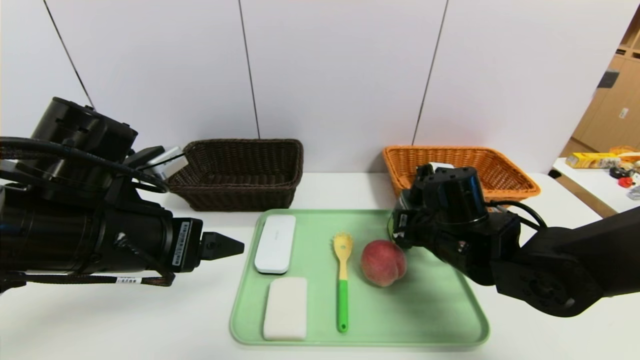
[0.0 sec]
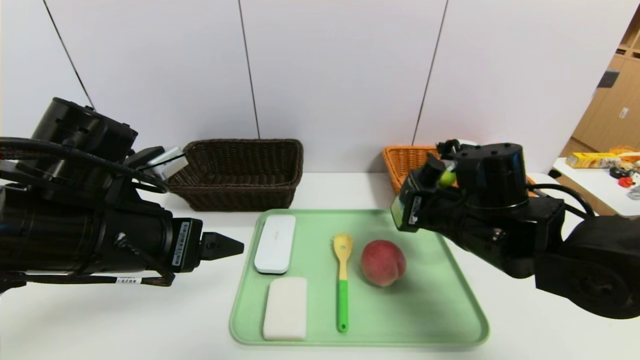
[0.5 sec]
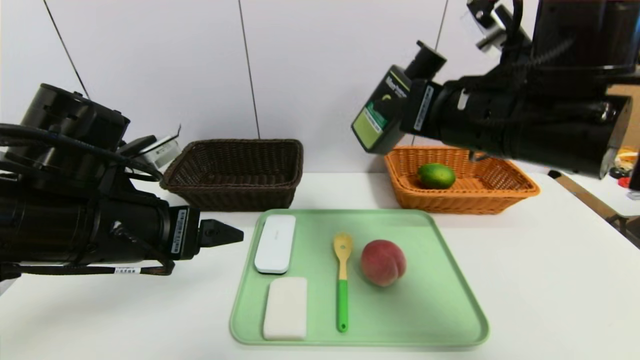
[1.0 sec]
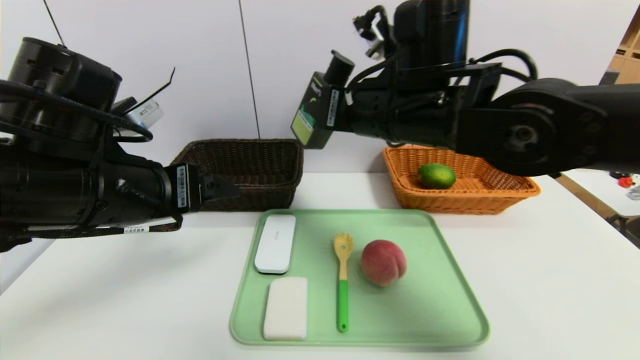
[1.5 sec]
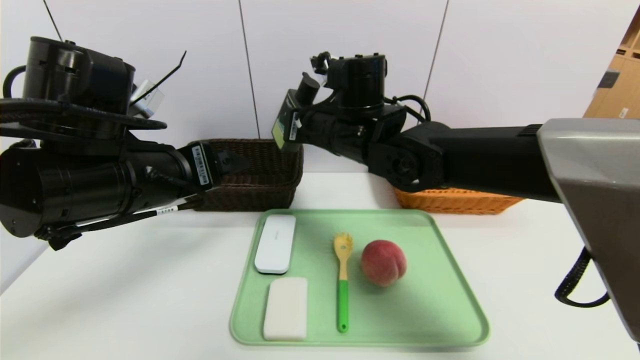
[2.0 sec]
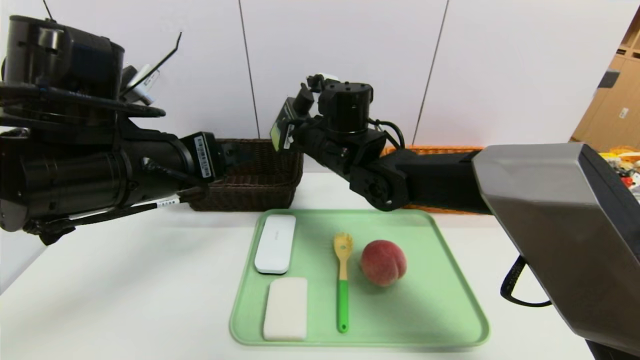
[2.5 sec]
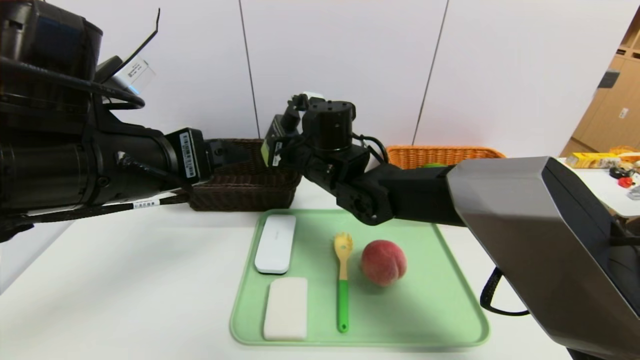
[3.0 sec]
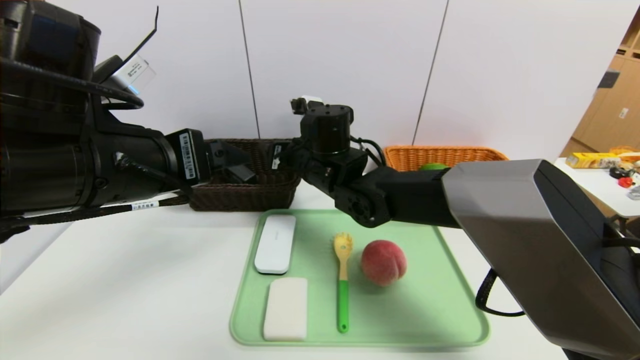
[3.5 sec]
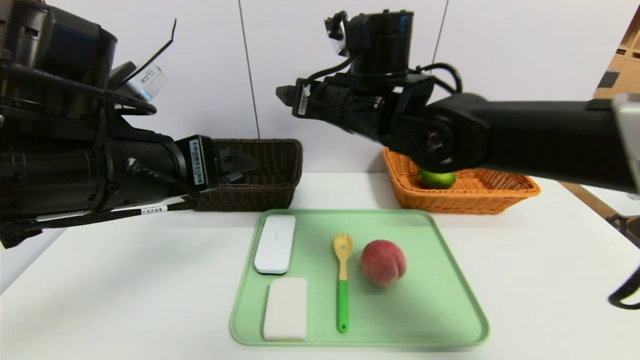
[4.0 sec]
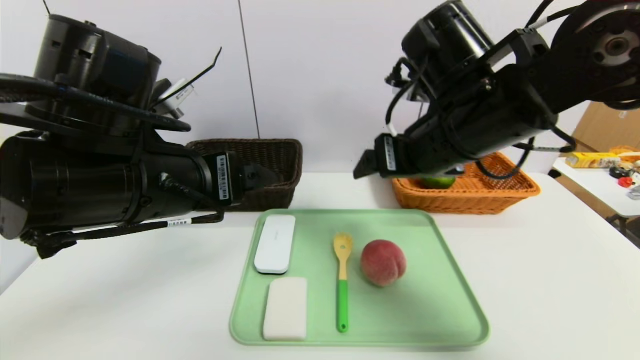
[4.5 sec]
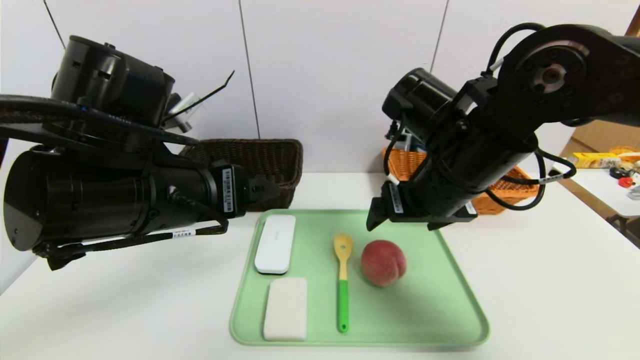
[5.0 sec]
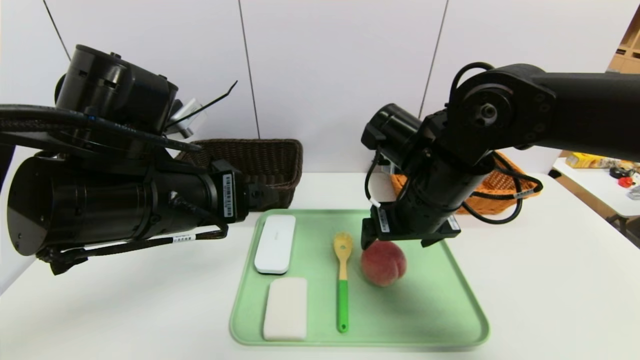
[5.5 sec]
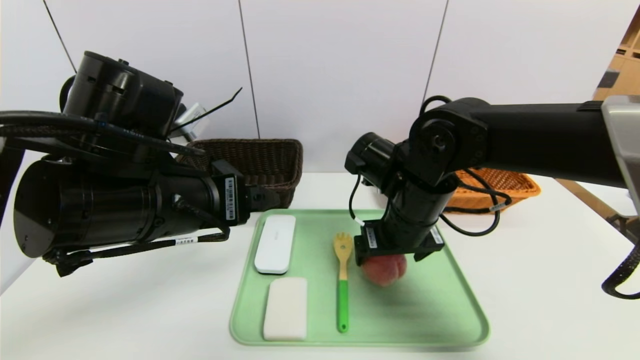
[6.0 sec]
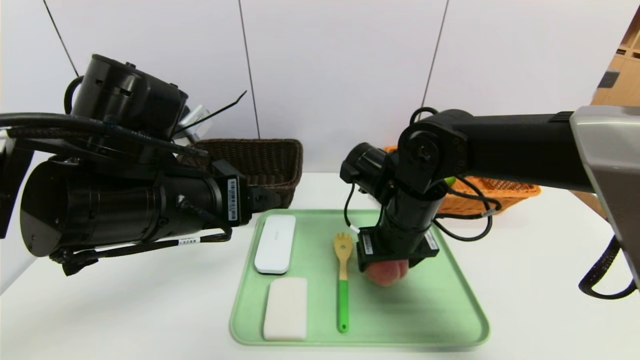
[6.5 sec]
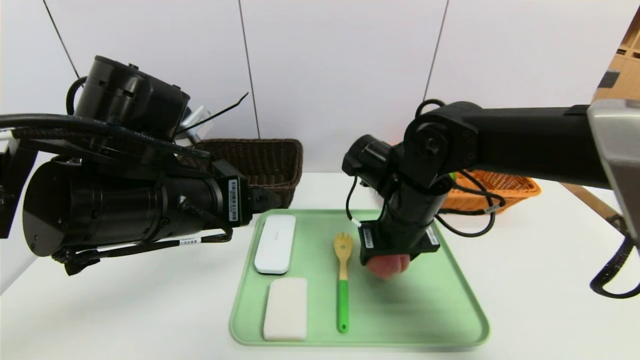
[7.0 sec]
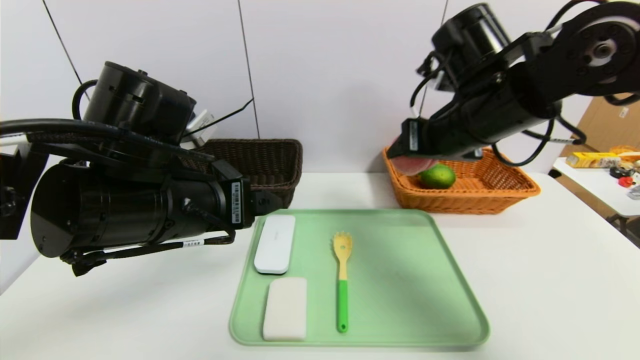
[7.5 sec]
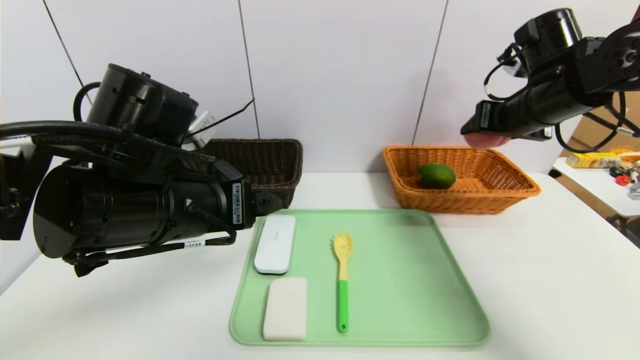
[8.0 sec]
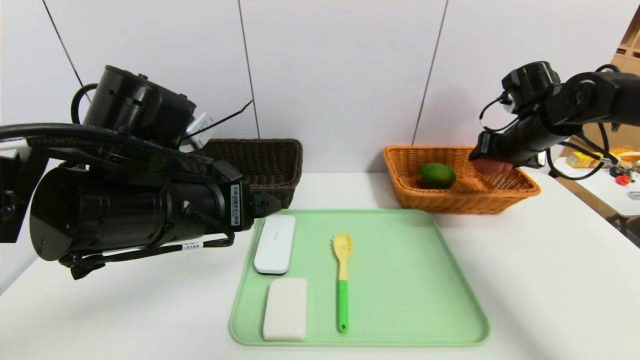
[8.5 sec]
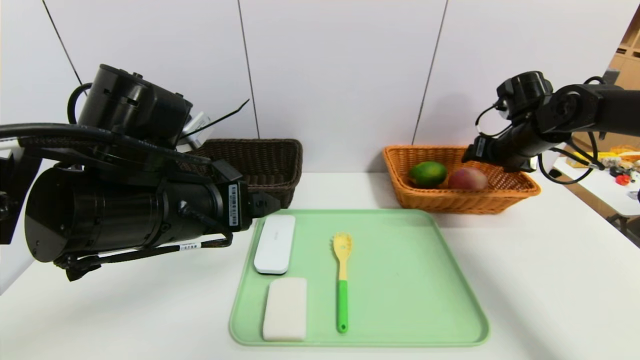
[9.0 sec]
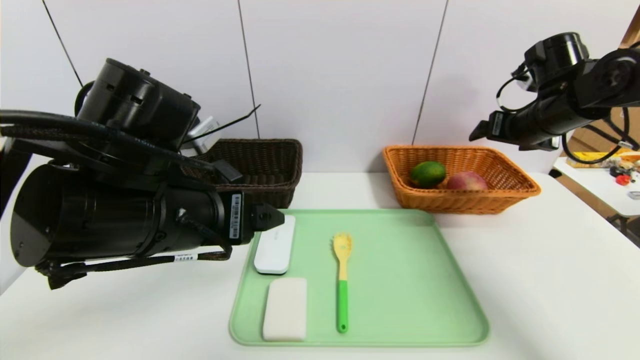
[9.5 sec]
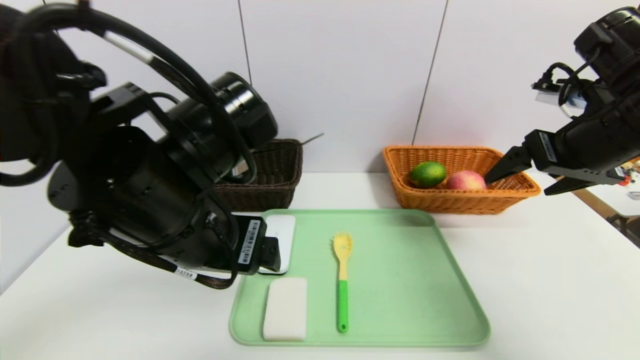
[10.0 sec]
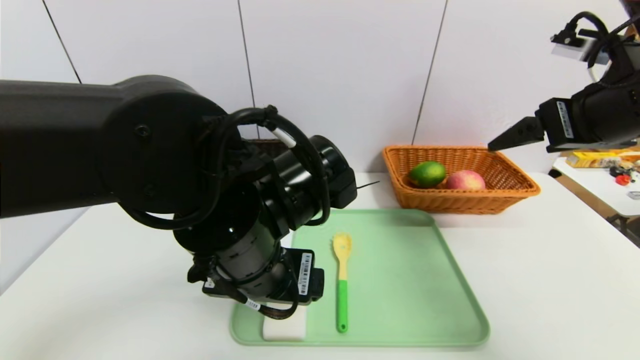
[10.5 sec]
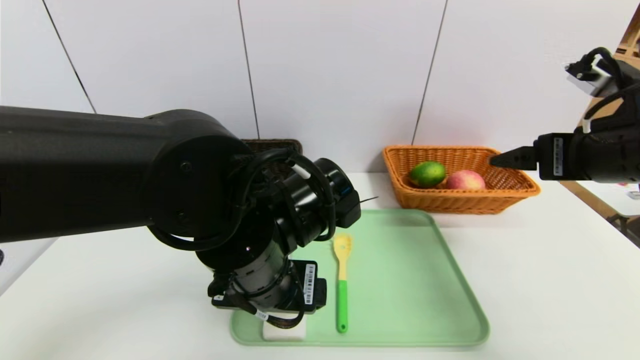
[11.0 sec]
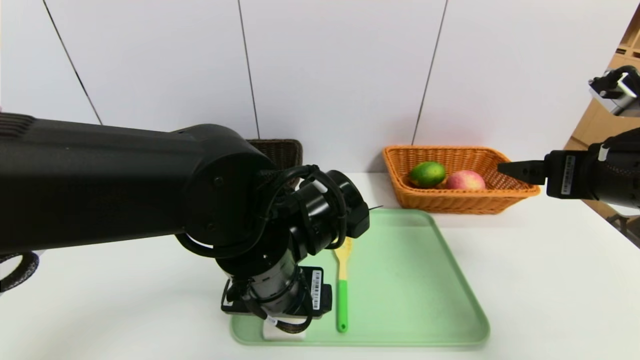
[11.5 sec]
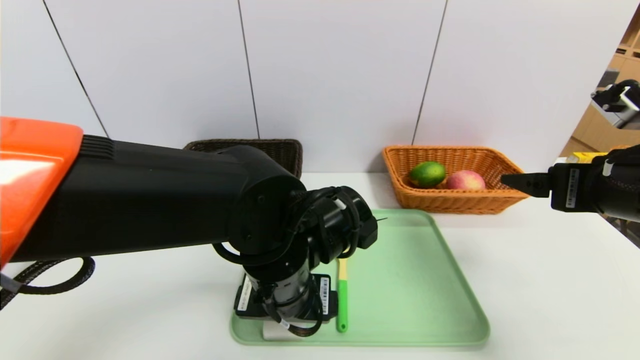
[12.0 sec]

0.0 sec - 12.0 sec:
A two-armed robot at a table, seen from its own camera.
Task of the whole recording: place the food in the right basket with the right gripper, and place the non food items in the left basket with the left gripper.
Step, 0.0 sec - 4.5 sec: Grasp the hard cleanser and put it in the left basket.
Step, 5.0 sec - 9.5 sec: Grasp the peach and put it in the right basket.
0.0 sec - 2.0 sec: The right gripper is displaced to the left, upward and forward by about 20 cm.
2.0 sec - 4.0 sec: The right gripper changes place by about 5 cm, and opens its fingers.
4.0 sec - 6.0 sec: The right gripper shifts approximately 10 cm downward and to the right.
6.0 sec - 8.0 sec: The right gripper moves to the right, upward and forward, roughly 25 cm, and closes up.
8.0 sec - 10.0 sec: The right gripper heads backward, covering about 10 cm, and opens up.
10.0 sec - 12.0 sec: The right gripper goes about 5 cm backward, while the left gripper heads downward and to the right, covering about 10 cm.

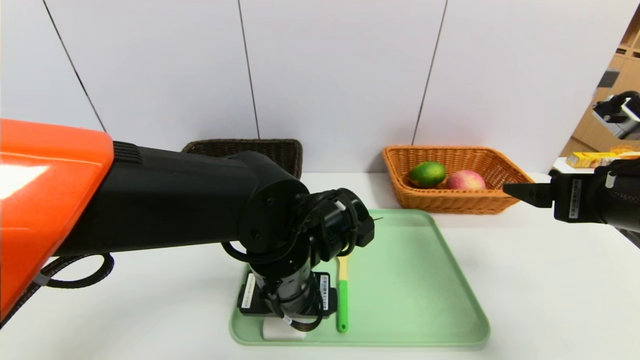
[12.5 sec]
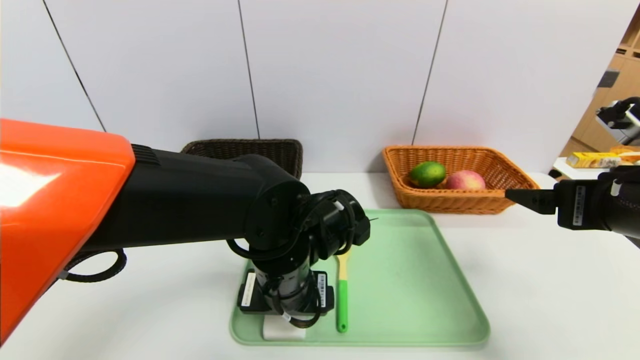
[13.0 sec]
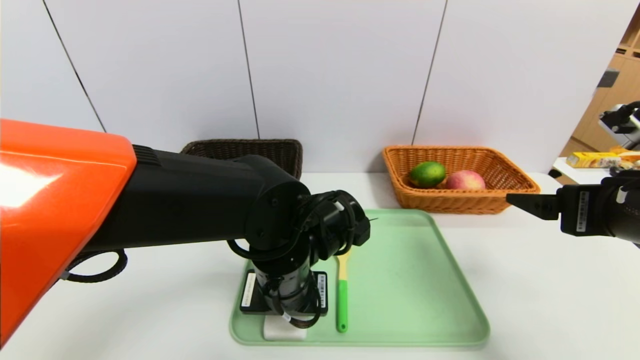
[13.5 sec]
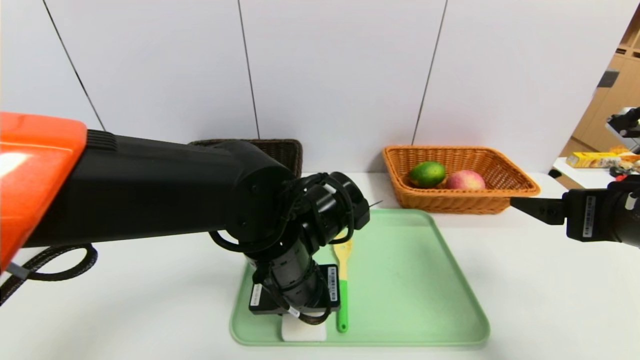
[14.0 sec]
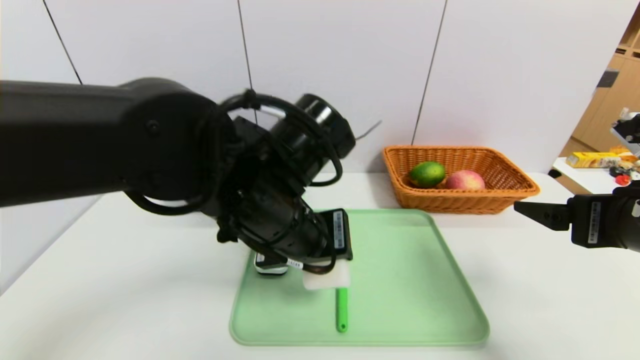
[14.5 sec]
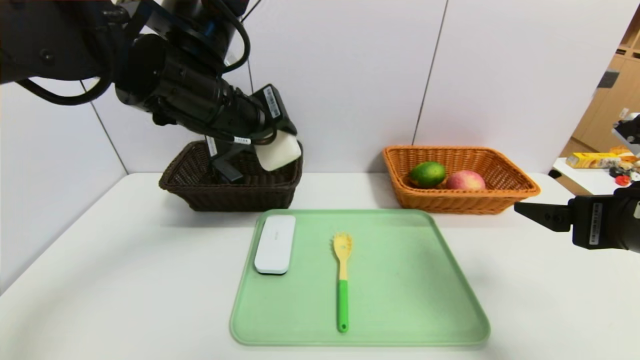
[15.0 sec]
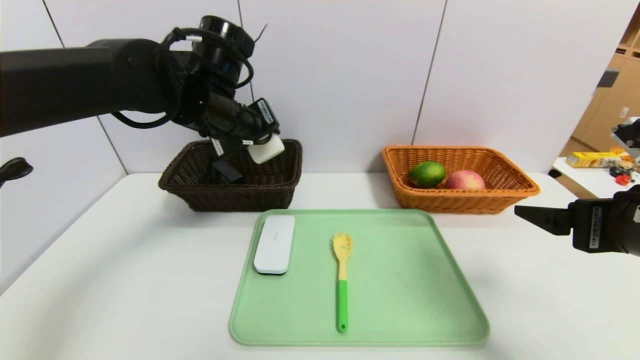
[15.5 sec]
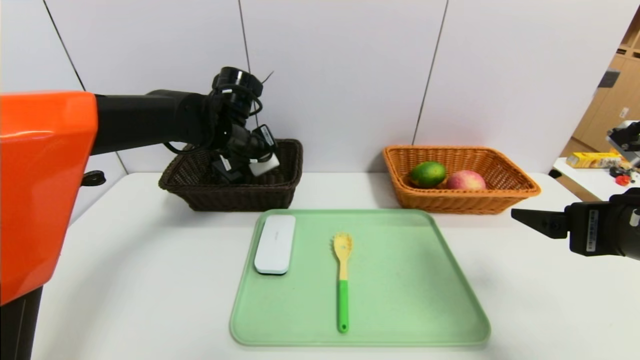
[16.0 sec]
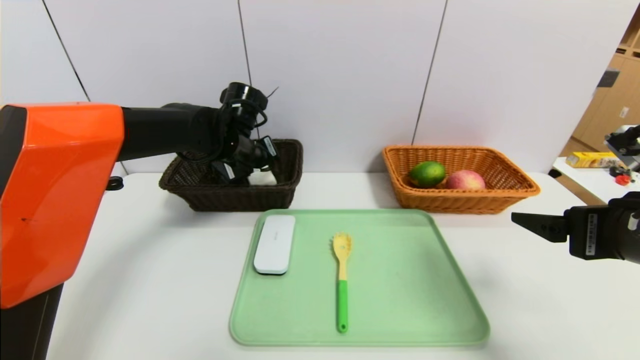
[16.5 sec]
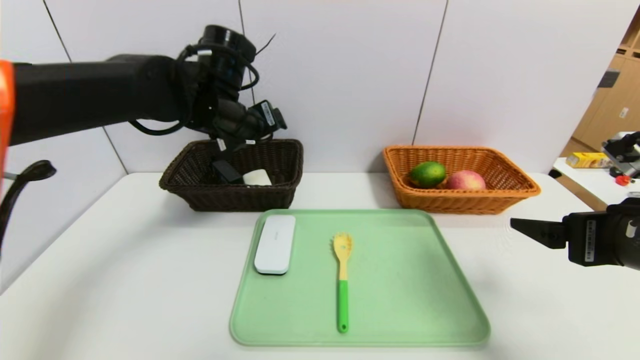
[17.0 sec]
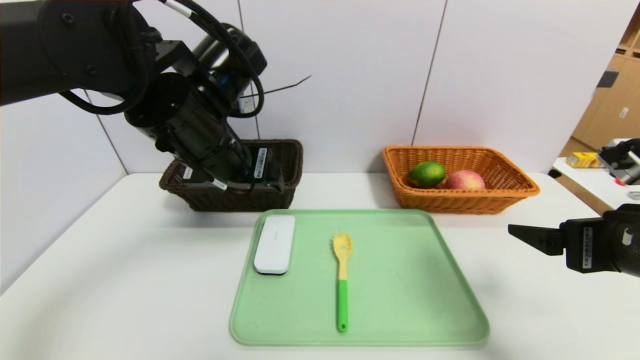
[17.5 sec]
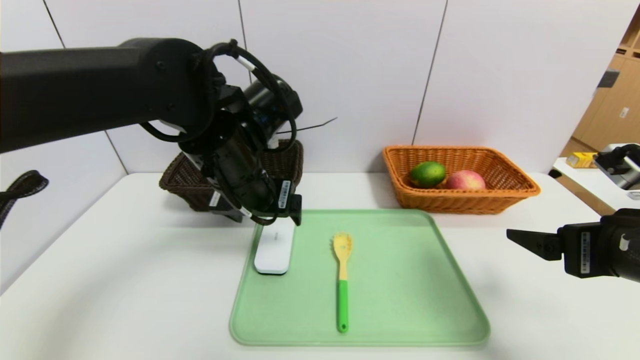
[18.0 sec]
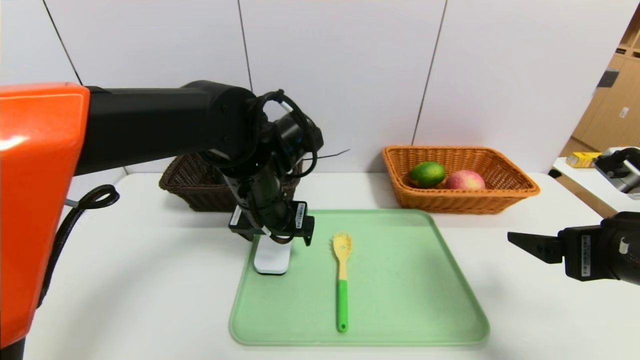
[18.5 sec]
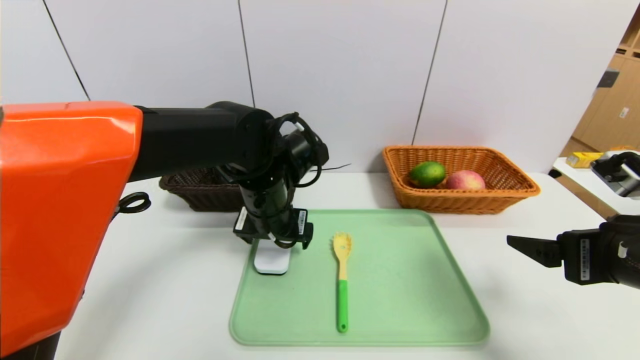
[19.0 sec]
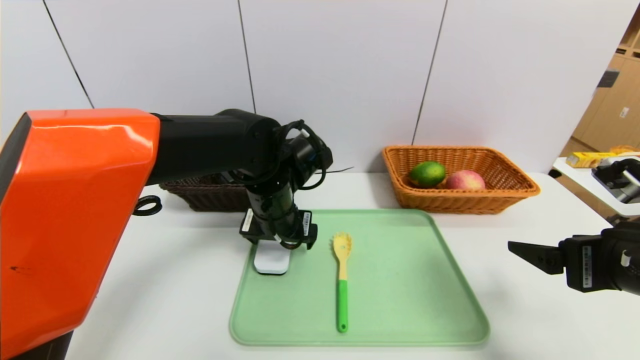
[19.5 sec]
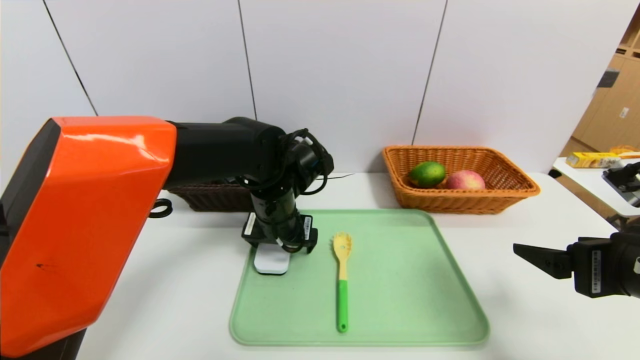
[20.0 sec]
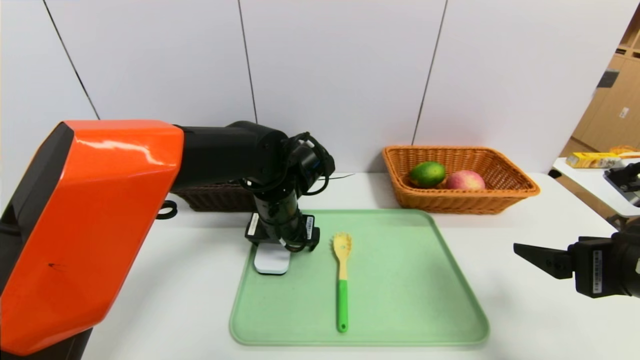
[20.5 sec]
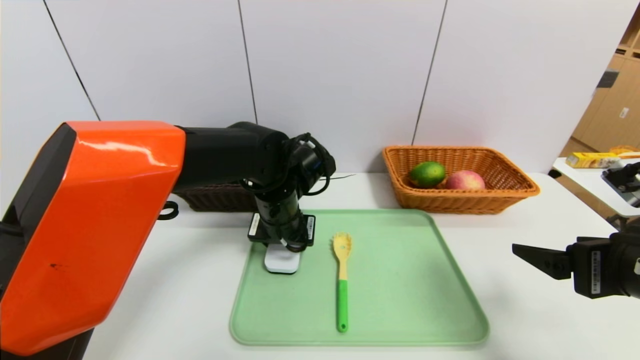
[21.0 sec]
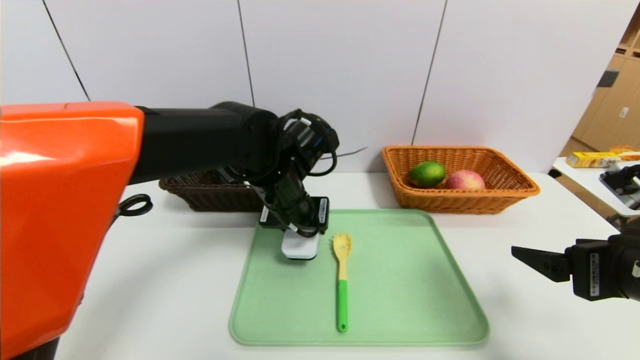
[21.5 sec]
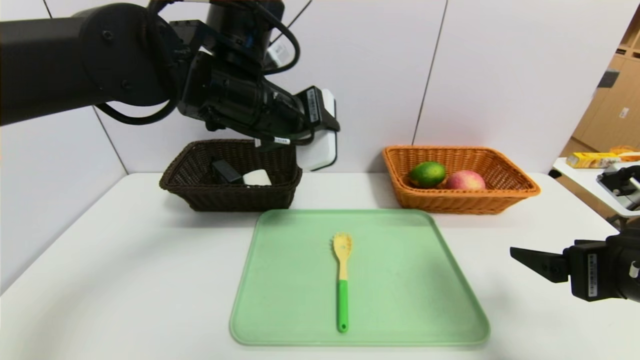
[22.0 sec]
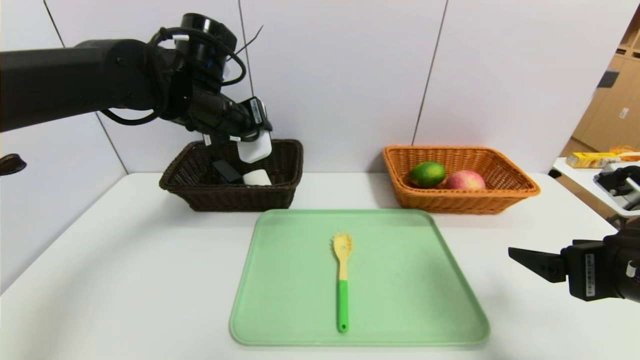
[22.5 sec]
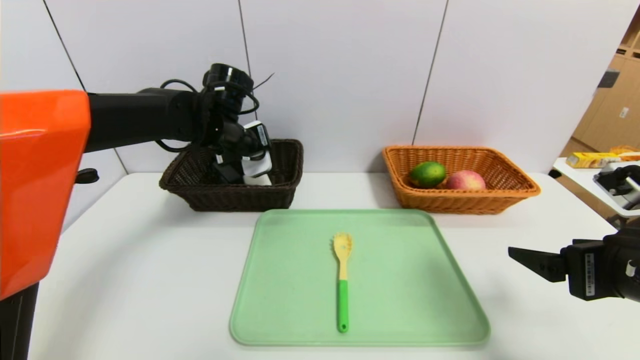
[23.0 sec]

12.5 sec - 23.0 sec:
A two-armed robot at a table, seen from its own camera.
Task of the whole recording: place the food in the right basket with the right gripper, and place the non food items in the left basket with the left gripper.
Step, 12.5 sec - 17.5 sec: Grasp the white eraser and put it in the left basket.
12.5 sec - 14.5 sec: The left gripper moves upward, about 10 cm, and closes up.
14.5 sec - 16.5 sec: The left gripper heads forward and to the left, covering approximately 20 cm.
16.5 sec - 19.0 sec: The left gripper goes roughly 15 cm backward and to the right.
19.0 sec - 21.0 sec: The left gripper closes up.
21.0 sec - 23.0 sec: The left gripper shifts roughly 15 cm to the left, forward and upward.
